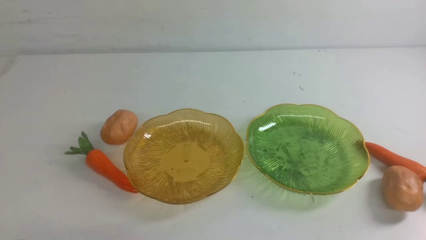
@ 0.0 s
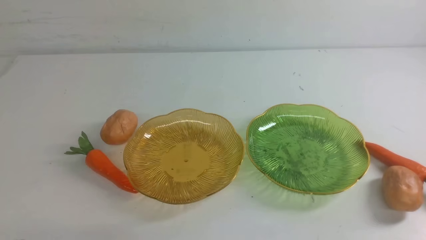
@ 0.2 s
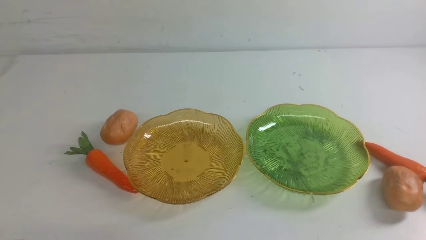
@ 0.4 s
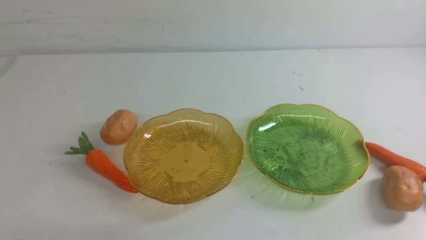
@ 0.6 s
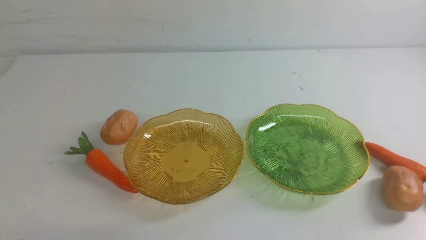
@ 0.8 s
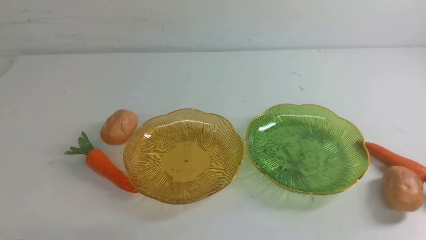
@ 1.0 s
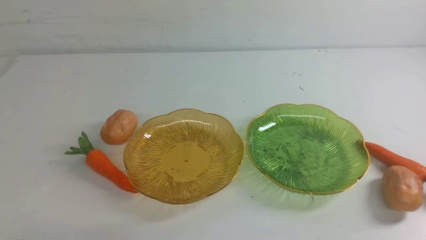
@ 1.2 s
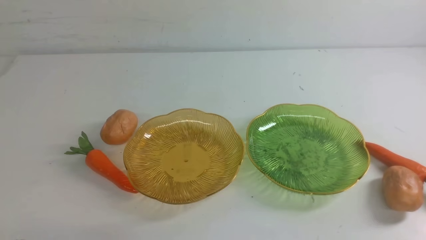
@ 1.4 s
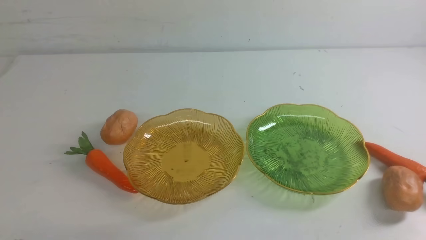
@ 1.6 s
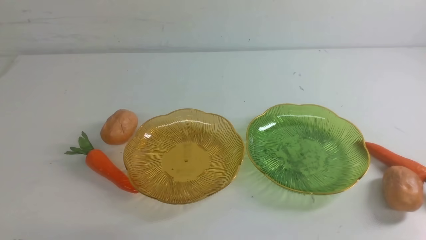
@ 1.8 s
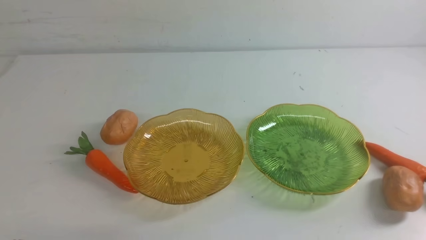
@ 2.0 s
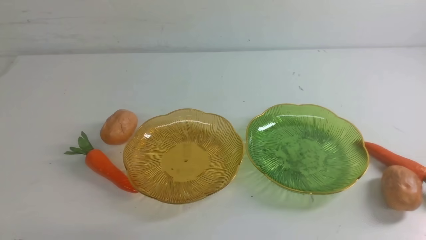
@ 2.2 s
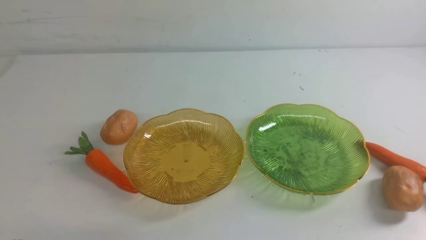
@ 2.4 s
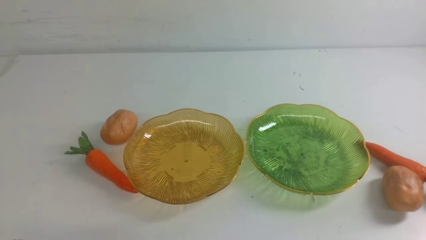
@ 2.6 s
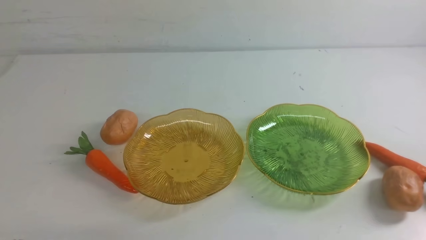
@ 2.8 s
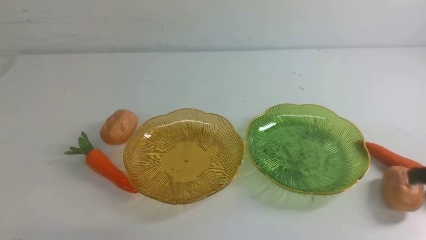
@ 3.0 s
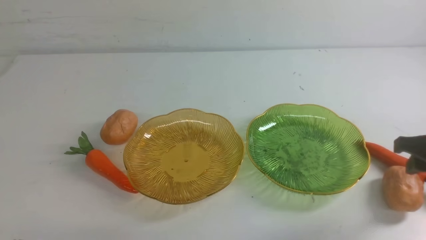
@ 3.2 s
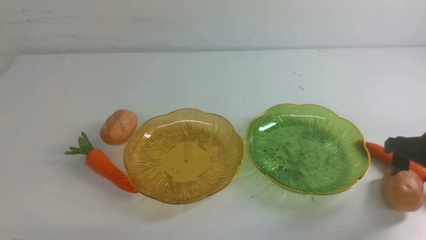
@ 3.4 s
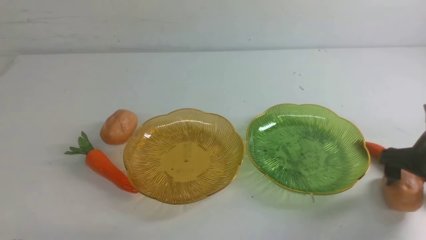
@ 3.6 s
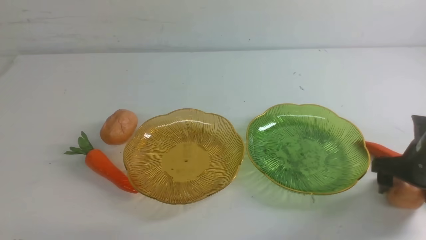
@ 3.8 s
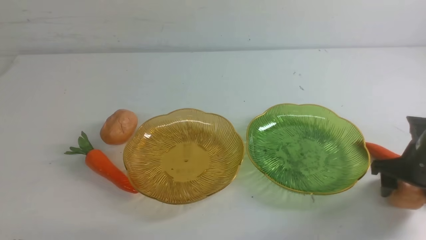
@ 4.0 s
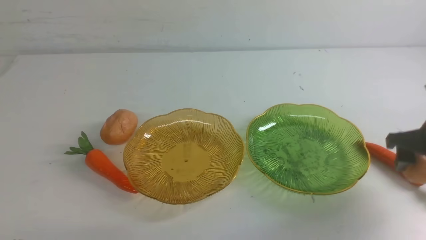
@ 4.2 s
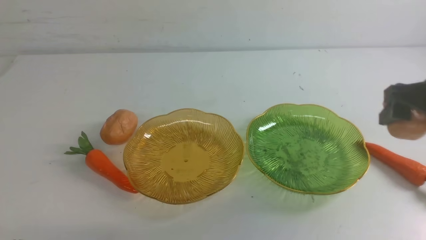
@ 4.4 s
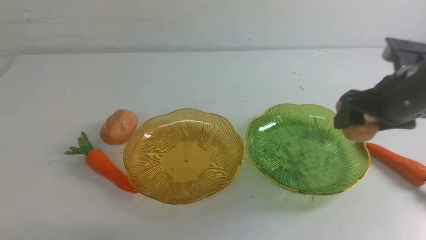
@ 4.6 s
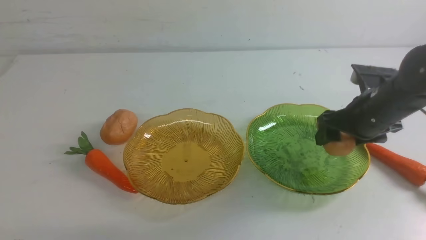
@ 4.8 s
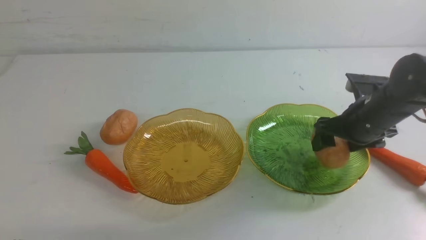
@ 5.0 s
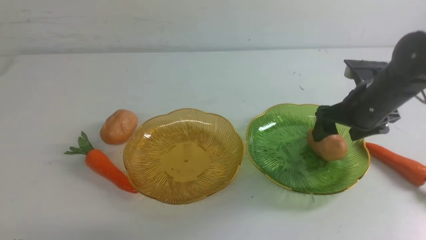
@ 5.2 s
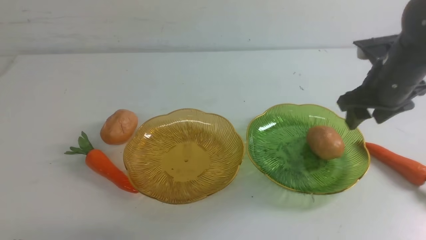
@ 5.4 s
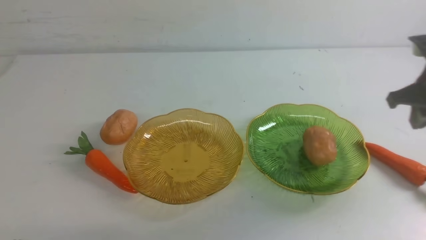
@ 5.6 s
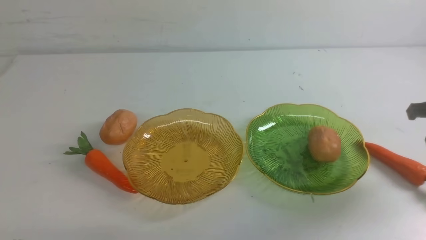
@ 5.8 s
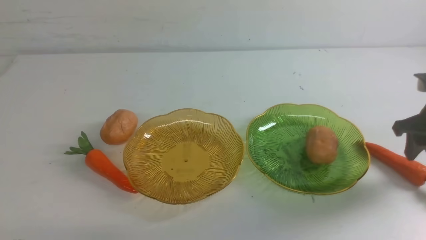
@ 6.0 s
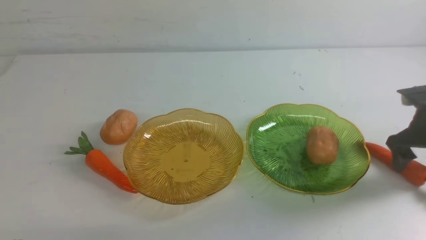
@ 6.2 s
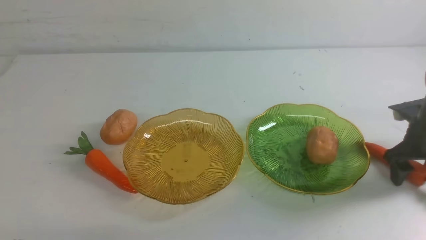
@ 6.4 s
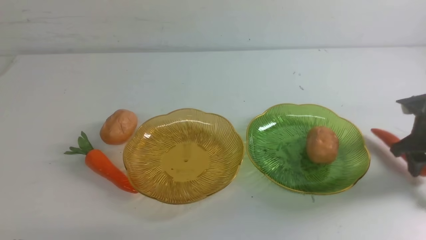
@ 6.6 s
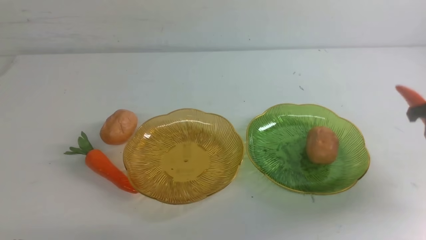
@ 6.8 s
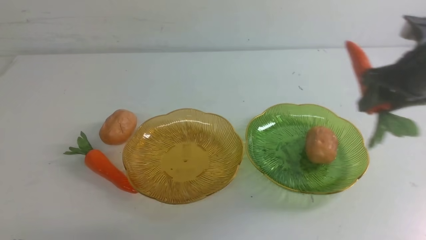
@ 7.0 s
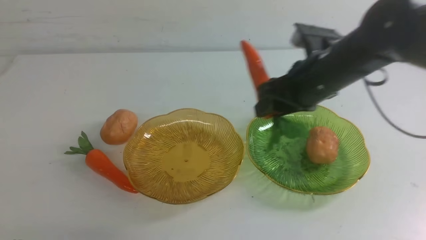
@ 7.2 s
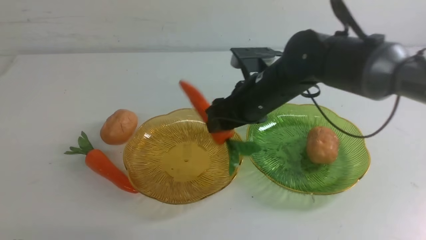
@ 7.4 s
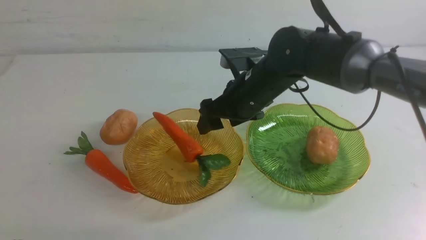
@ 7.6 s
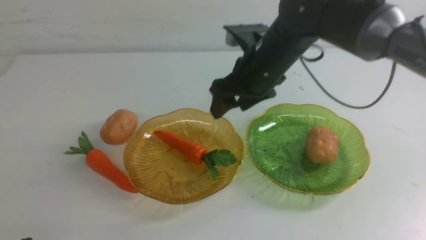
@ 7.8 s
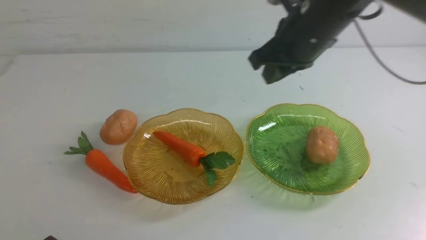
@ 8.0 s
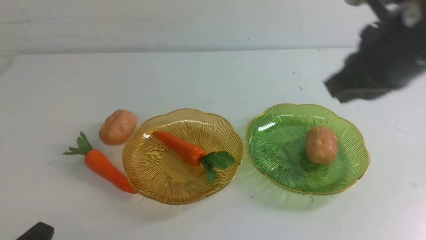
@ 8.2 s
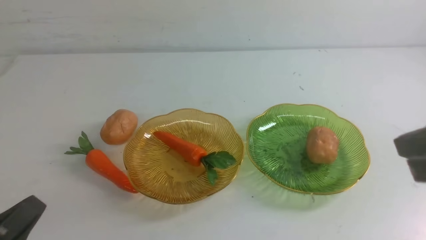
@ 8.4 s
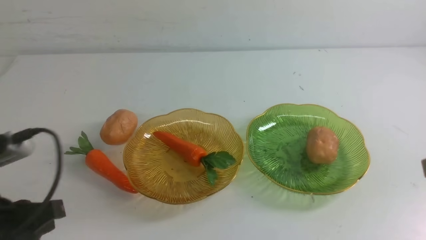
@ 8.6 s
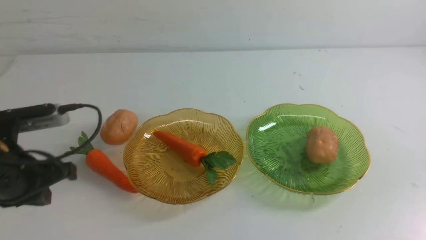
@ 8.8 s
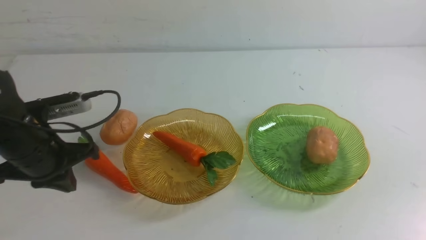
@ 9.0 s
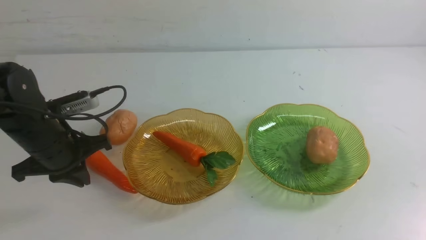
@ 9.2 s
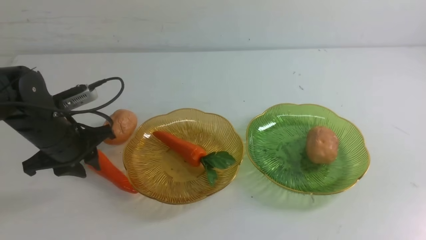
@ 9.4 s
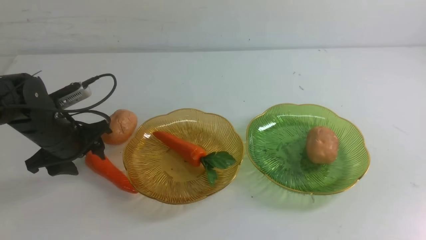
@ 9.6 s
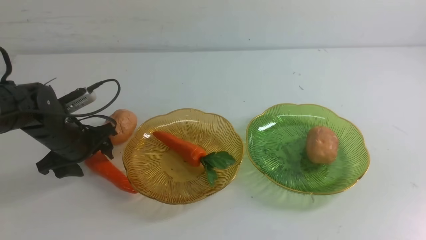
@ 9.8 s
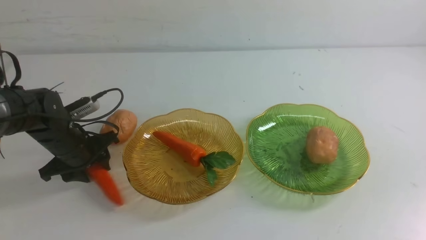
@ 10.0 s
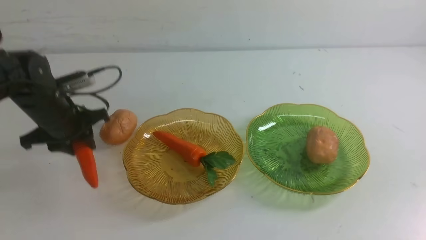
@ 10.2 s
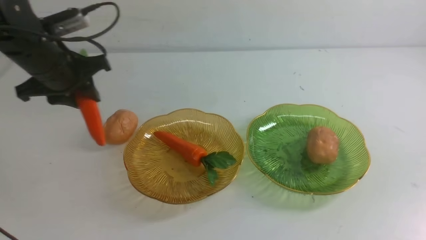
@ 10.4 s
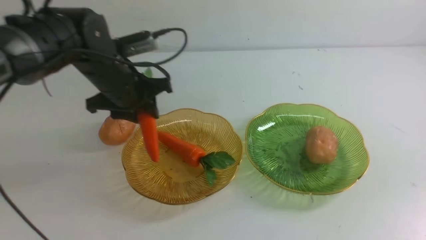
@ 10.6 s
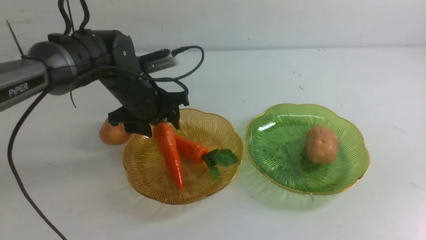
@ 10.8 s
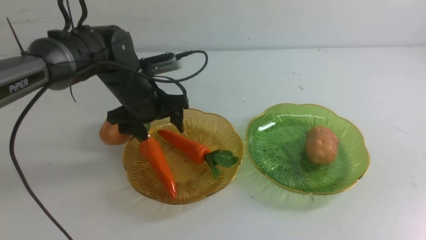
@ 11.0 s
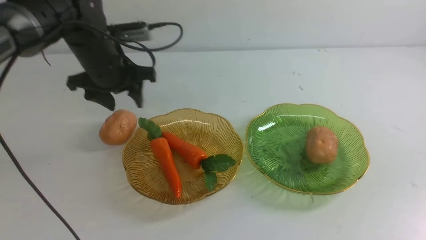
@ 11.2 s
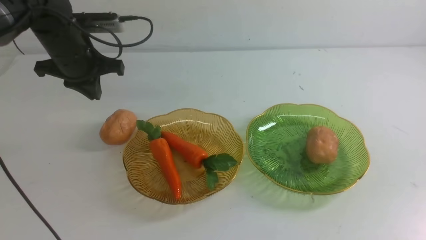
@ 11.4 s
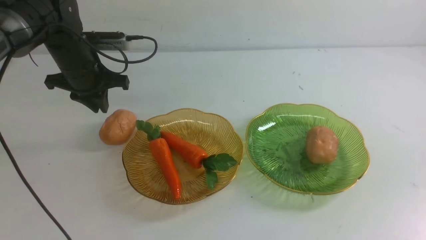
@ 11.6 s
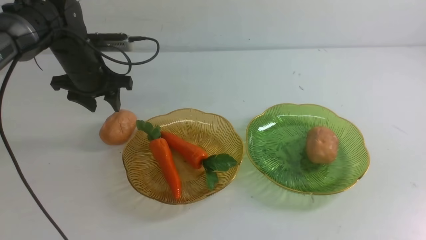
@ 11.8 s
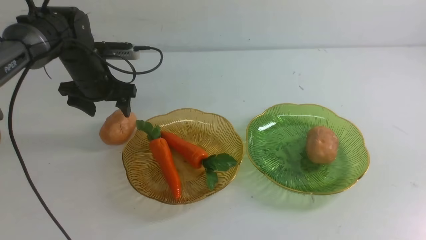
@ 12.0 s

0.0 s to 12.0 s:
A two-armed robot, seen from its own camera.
Step, 0.0 to 5.2 s: Grab a potato with your right arm and put it on the right plate.
Step, 5.4 to 7.8 s: use the right arm to grab a carrot and put it into the left plate.
Step, 8.0 to 11.0 s: use the left arm to grab a carrot and put it into the left plate.
3.0 to 4.4 s: The right gripper shifts roughly 10 cm forward and to the left, and travels upward and back again, some 5 cm each way.
4.4 to 6.0 s: The right gripper moves to the right and downward, about 15 cm, and closes, then opens again.
6.0 to 7.6 s: The right gripper heads to the left, covering some 30 cm.
7.6 to 9.0 s: The left gripper is displaced forward by roughly 20 cm. The right gripper shifts some 35 cm backward and to the right, and closes its fingers.
9.0 to 10.4 s: The left gripper moves forward, roughly 10 cm, and opens.
10.4 to 12.0 s: The left gripper heads forward and downward, covering about 10 cm, reaches roughly 5 cm to the right, then returns, and opens.

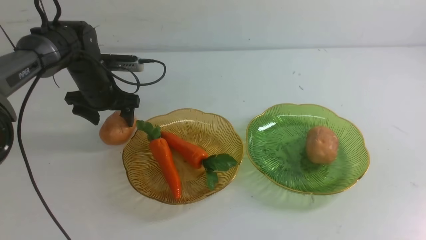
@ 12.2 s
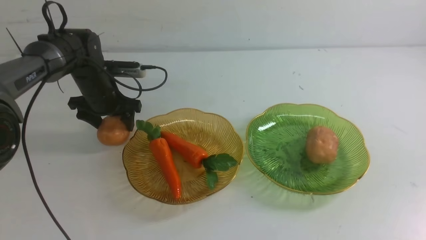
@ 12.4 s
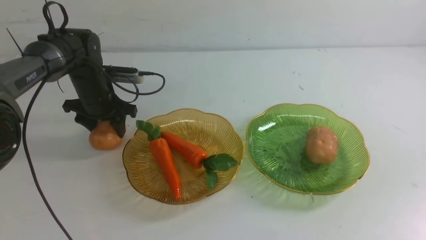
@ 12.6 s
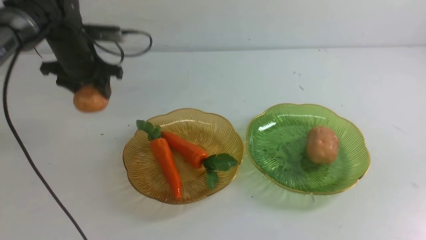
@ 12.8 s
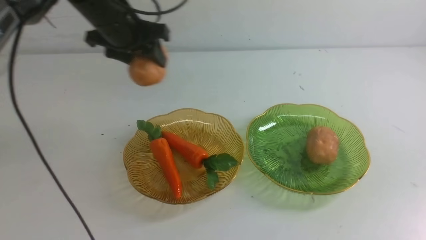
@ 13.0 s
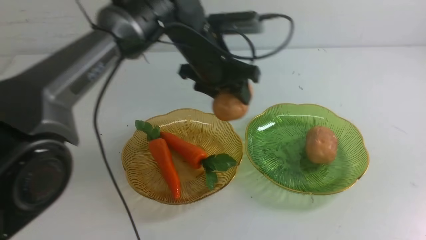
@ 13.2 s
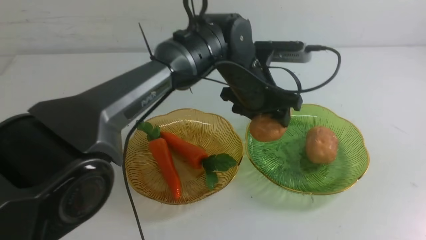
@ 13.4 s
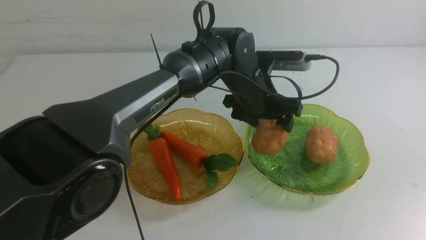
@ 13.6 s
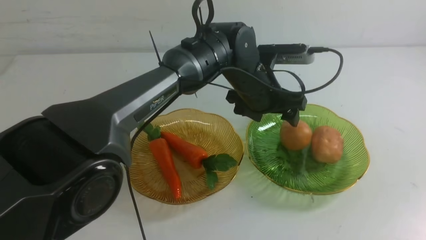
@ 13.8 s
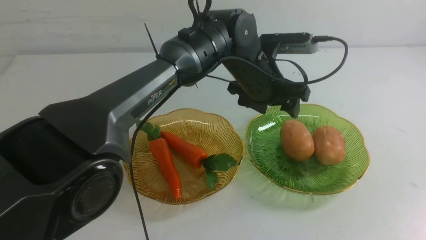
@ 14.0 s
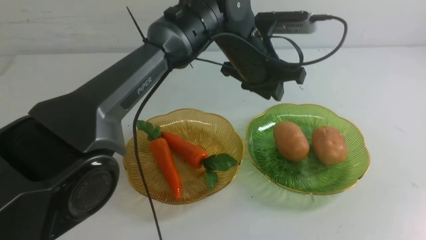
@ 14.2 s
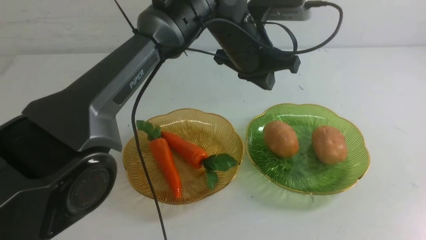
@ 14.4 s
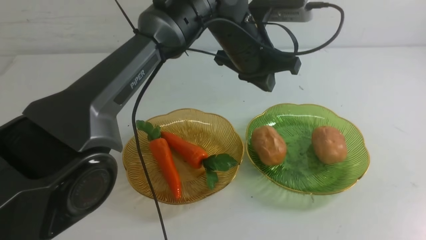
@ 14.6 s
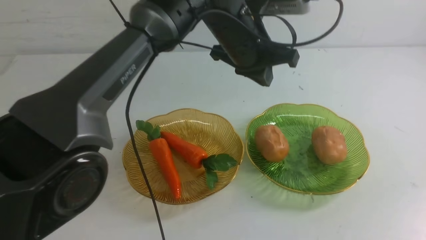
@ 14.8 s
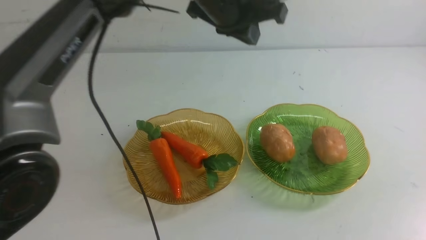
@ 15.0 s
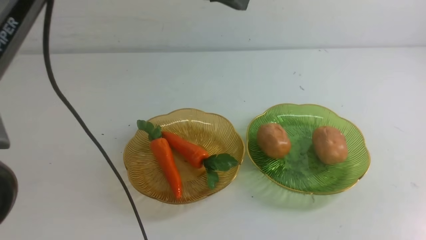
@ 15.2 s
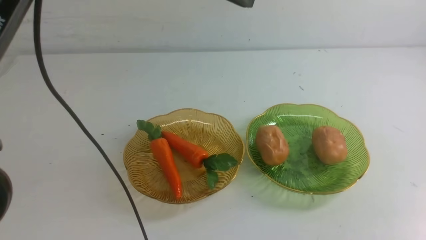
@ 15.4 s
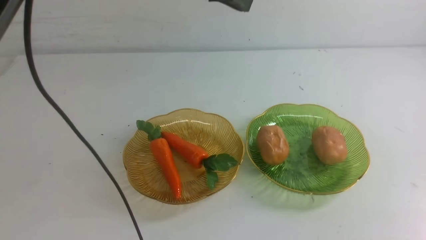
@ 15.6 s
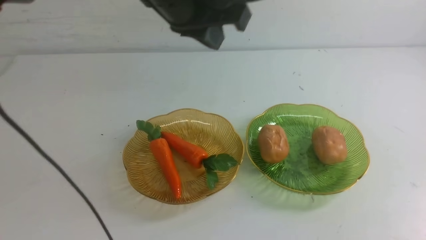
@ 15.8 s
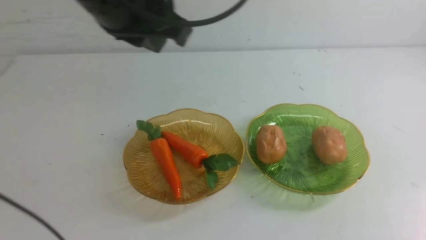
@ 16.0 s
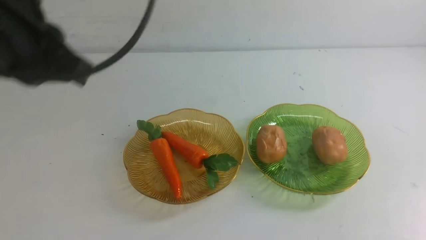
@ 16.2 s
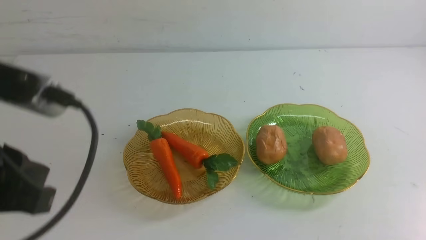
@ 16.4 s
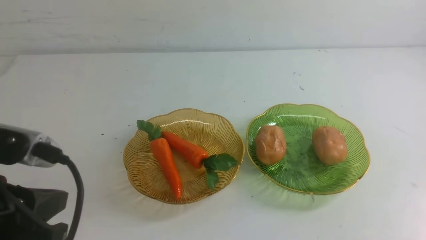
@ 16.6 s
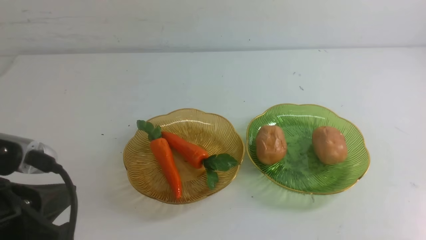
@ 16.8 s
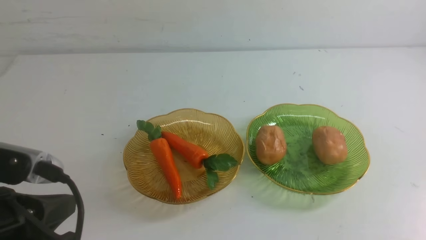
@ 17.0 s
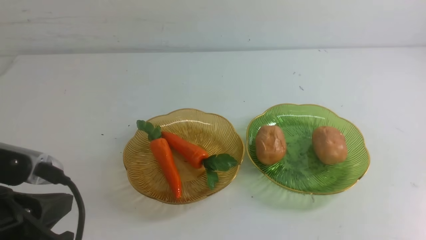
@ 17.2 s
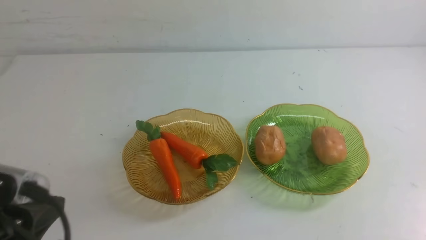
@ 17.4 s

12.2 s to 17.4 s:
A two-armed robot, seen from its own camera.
Step, 12.2 to 13.8 s: Grab a potato with your left arm and put it on the right plate.
12.2 to 14.0 s: The right gripper goes some 5 cm backward, while the left gripper is displaced to the right by about 30 cm.
14.0 to 15.6 s: The right gripper moves downward, some 15 cm, while the left gripper moves upward, to the left and backward, approximately 25 cm, and closes up.
15.6 to 17.4 s: The left gripper moves backward, downward and to the left, roughly 35 cm.
